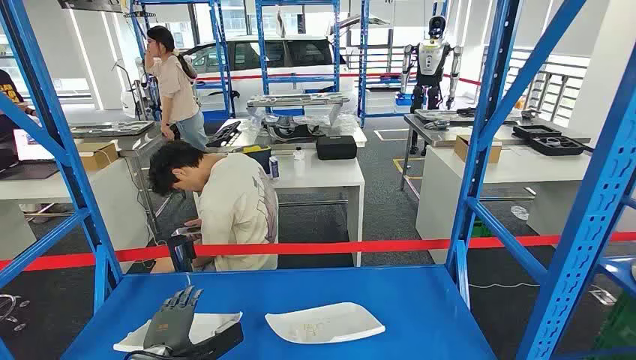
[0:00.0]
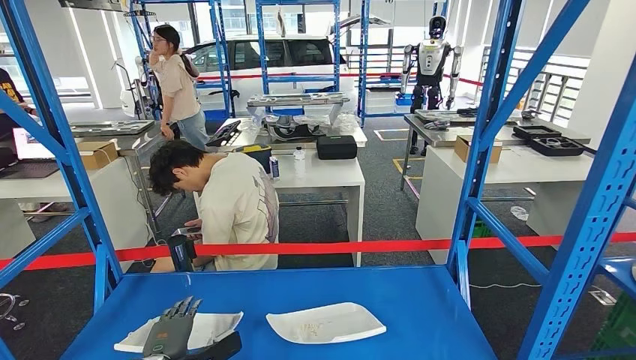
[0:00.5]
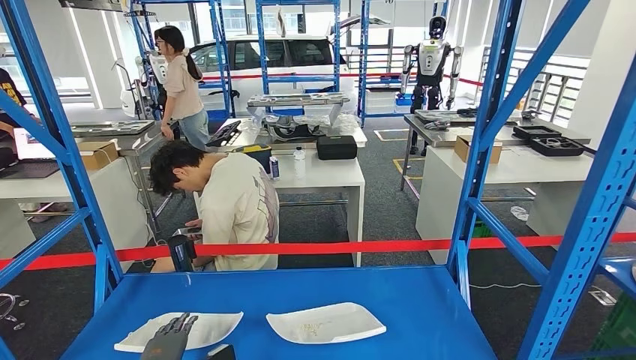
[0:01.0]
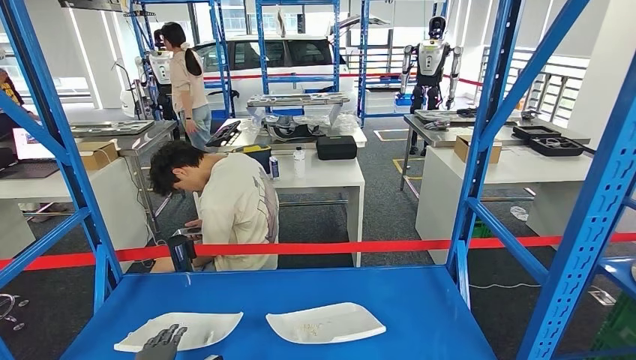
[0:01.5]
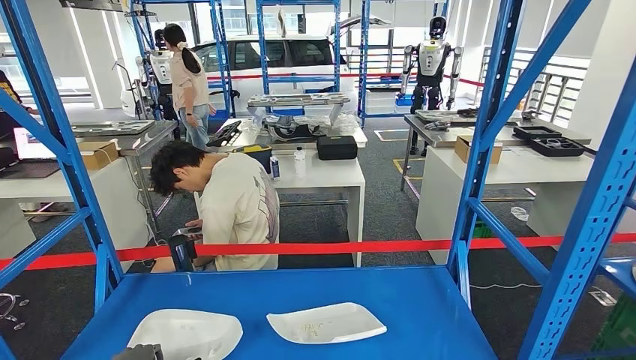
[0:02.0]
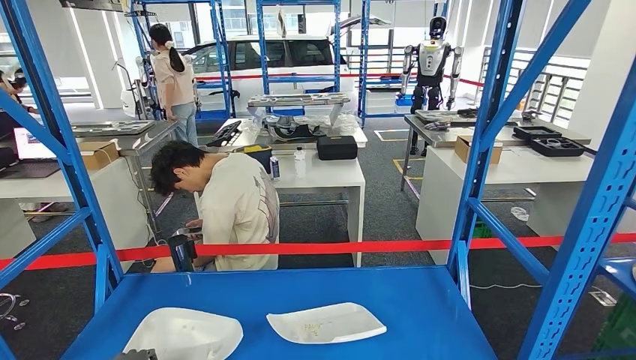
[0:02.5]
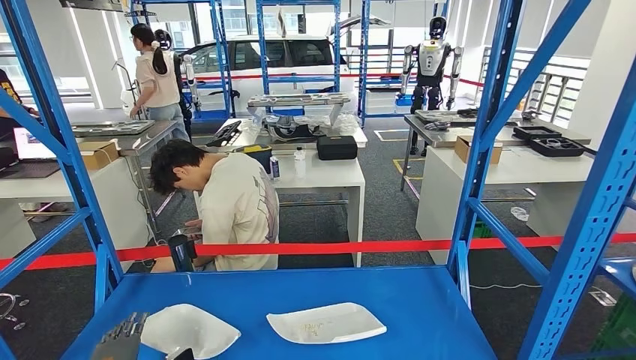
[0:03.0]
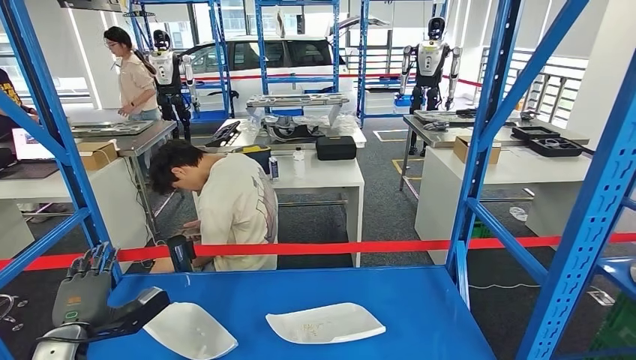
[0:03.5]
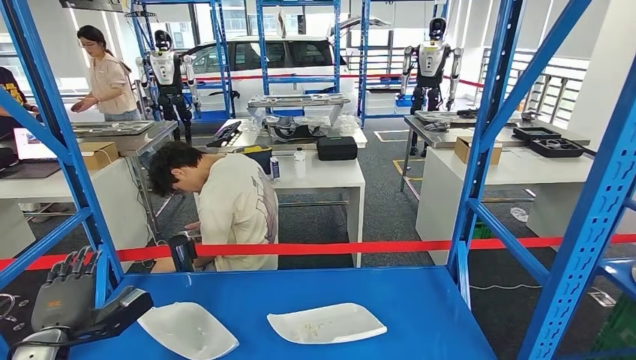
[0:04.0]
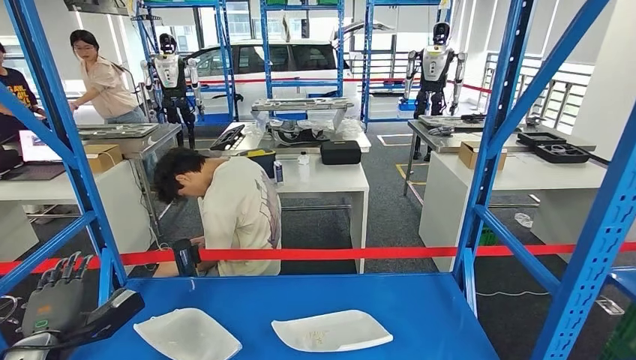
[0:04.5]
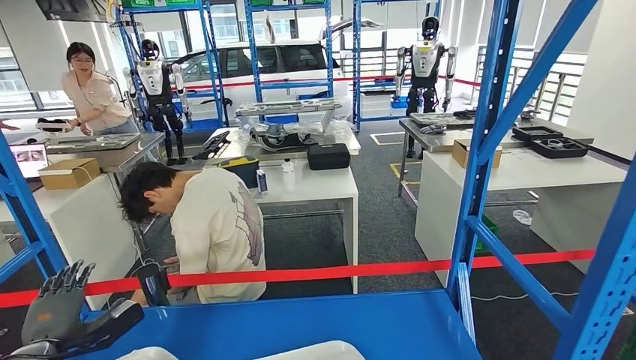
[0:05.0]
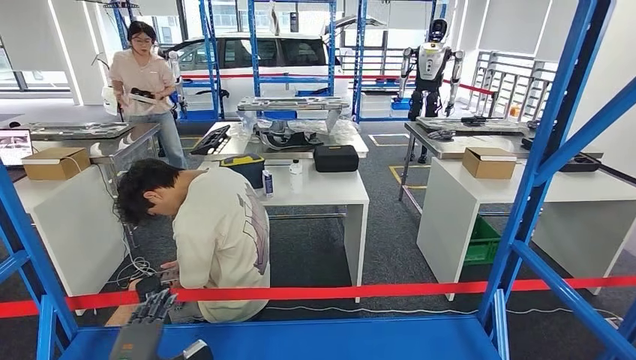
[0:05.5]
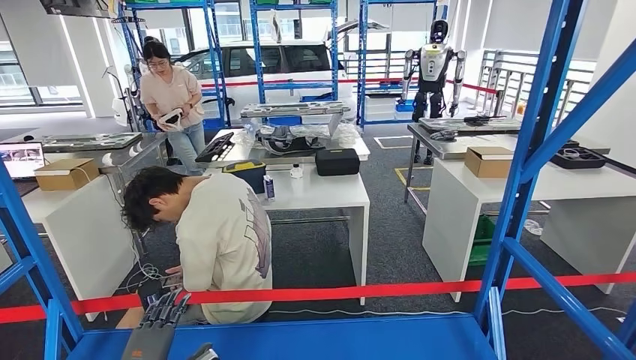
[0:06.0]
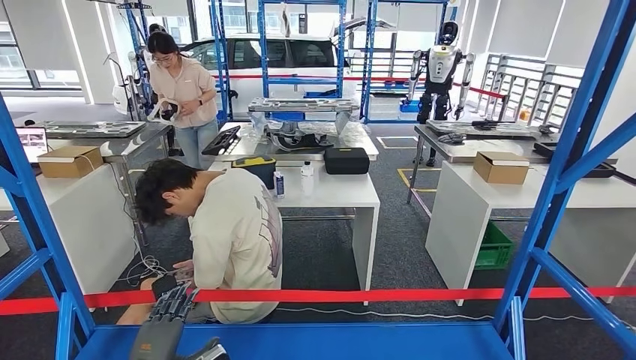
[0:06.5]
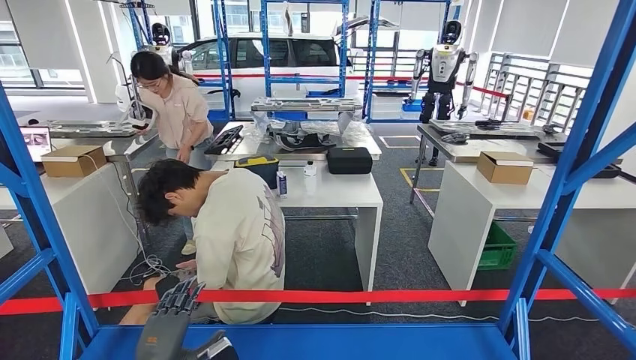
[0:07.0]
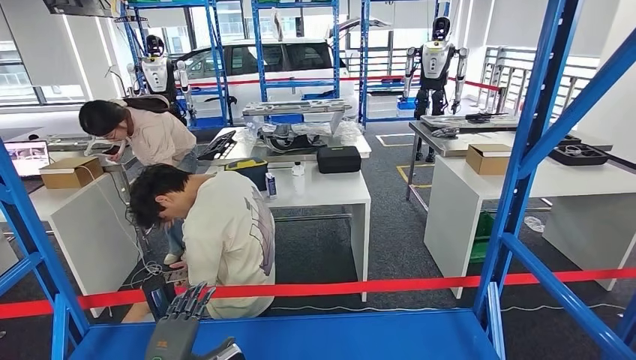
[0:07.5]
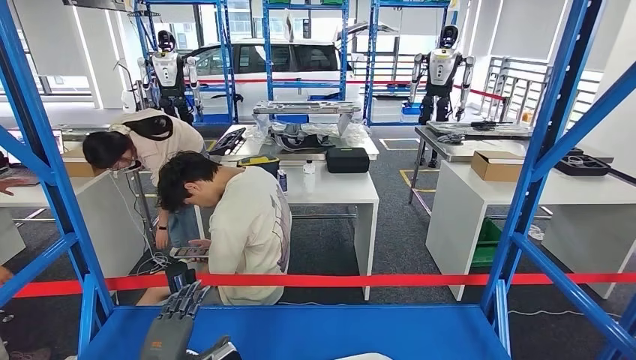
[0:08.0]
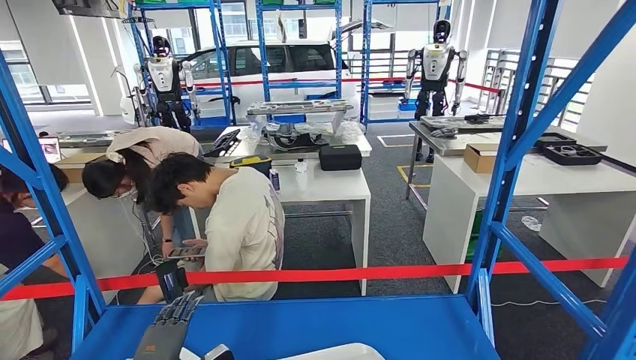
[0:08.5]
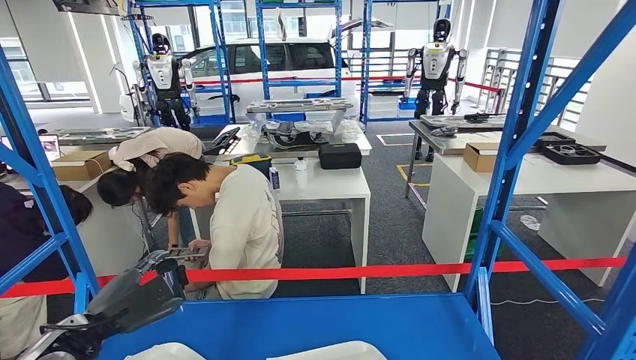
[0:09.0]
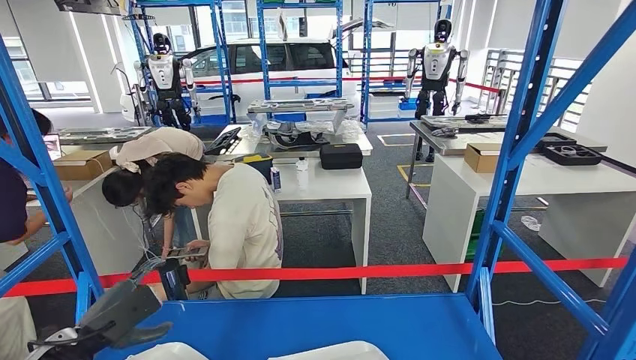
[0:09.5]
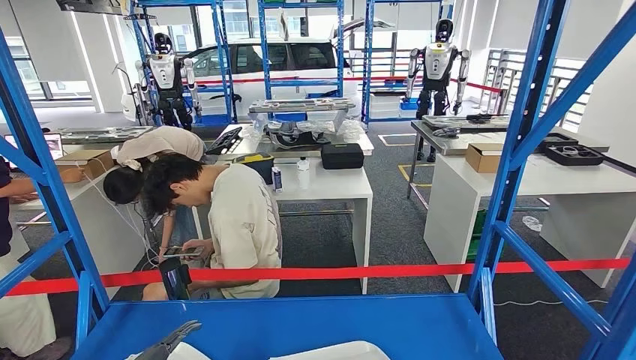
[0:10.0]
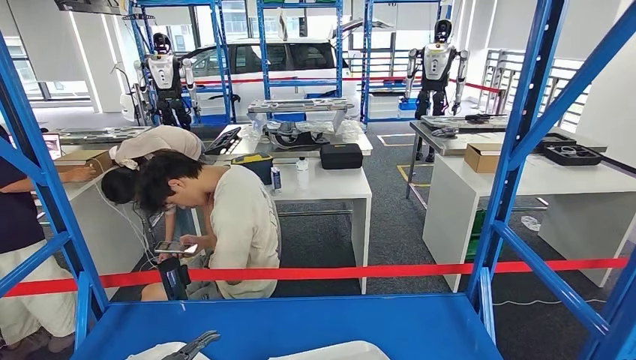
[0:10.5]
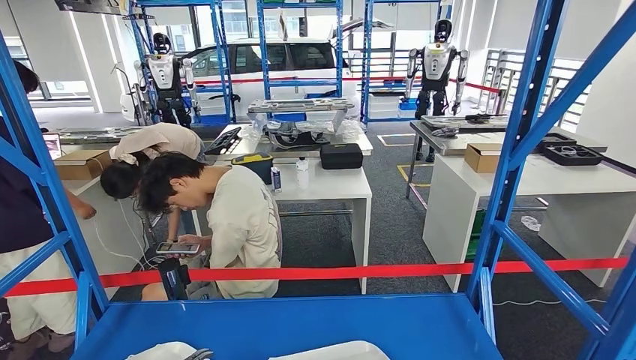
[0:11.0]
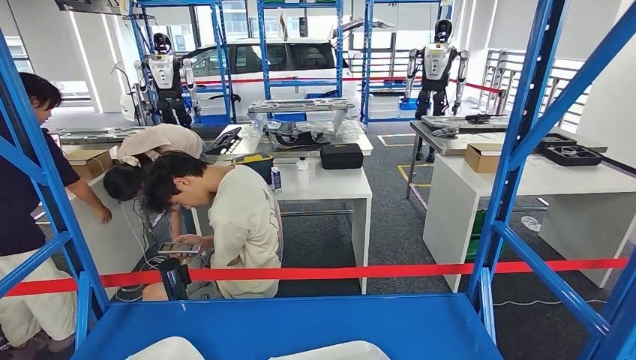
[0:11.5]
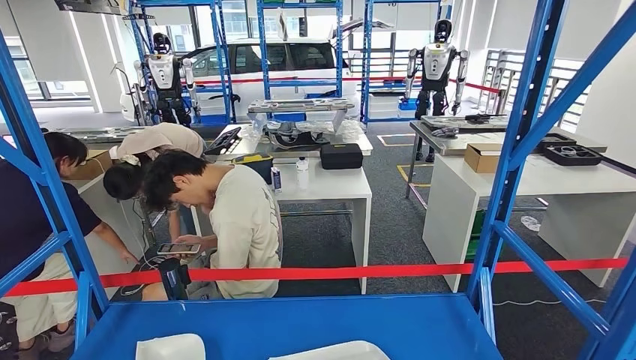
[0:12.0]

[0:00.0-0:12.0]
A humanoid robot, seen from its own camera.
0:02.0 to 0:04.0: The left hand goes about 15 cm upward and to the left.
0:10.0 to 0:12.0: The left hand travels downward by approximately 10 cm.

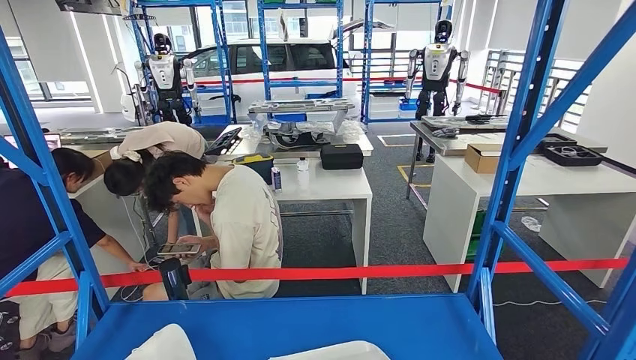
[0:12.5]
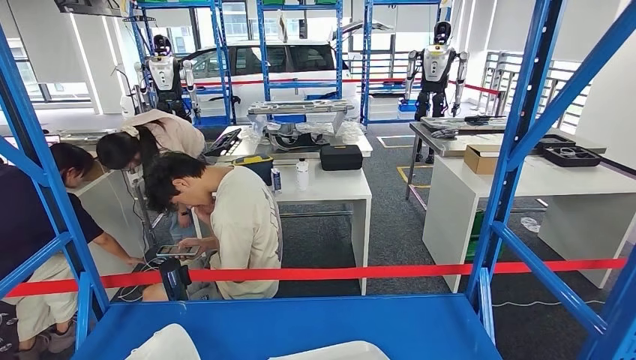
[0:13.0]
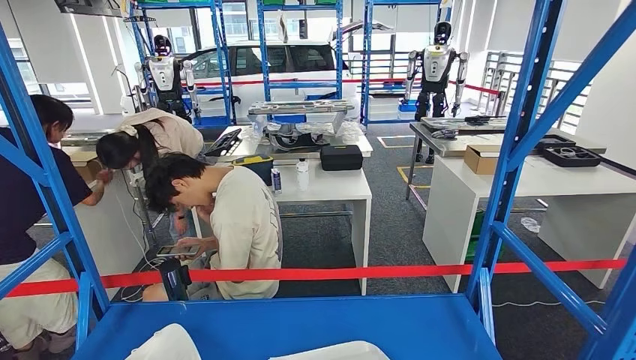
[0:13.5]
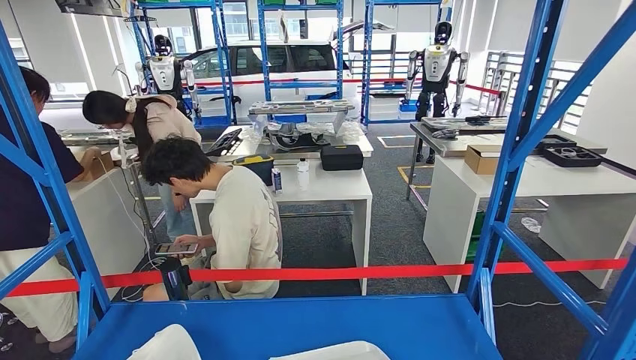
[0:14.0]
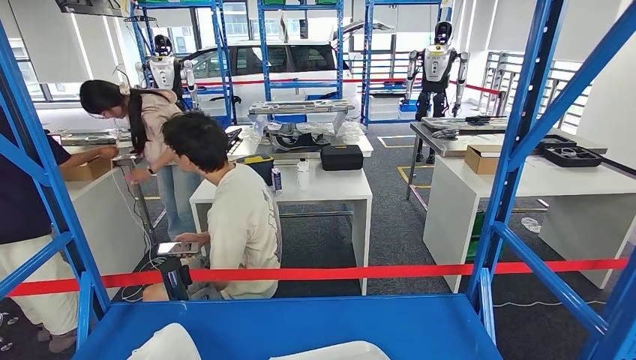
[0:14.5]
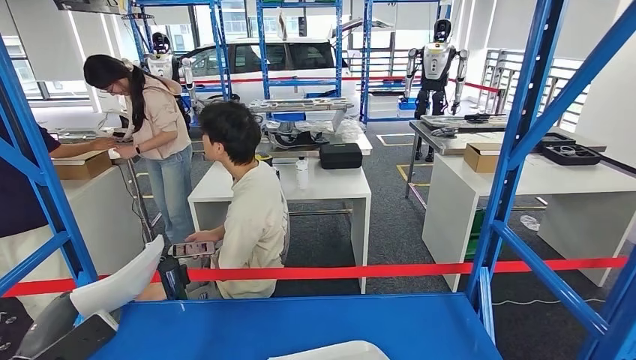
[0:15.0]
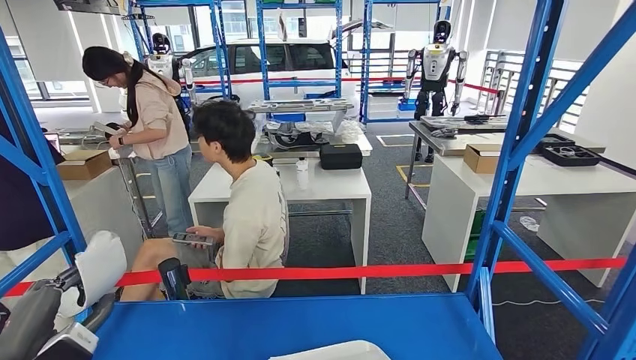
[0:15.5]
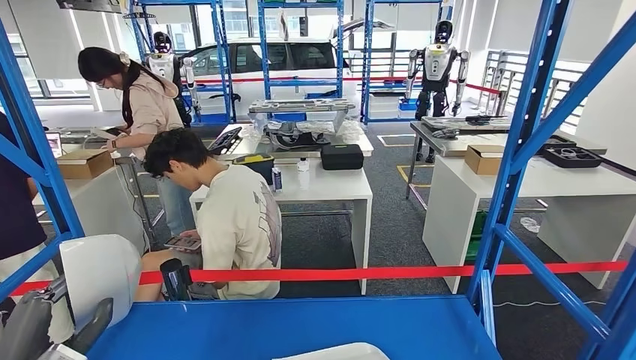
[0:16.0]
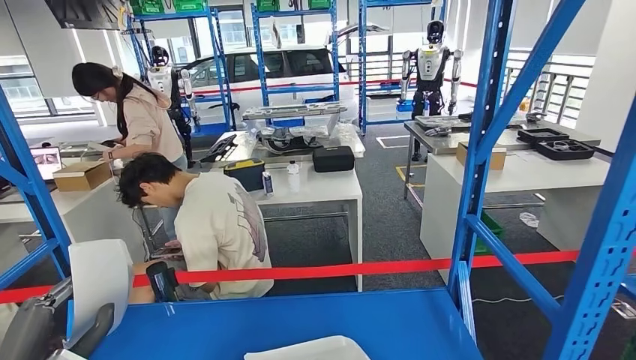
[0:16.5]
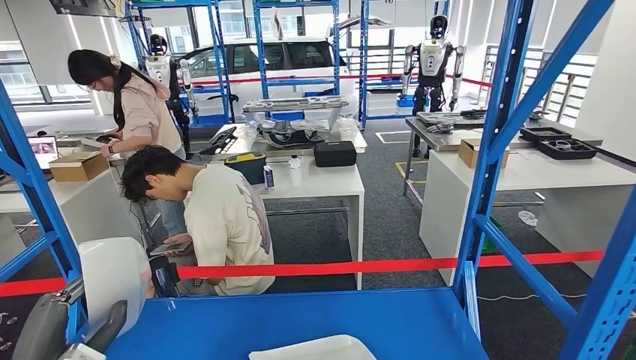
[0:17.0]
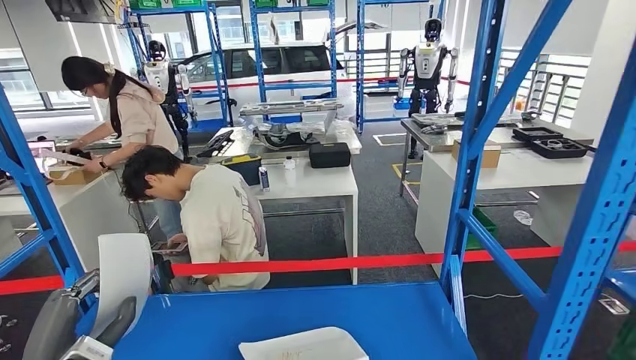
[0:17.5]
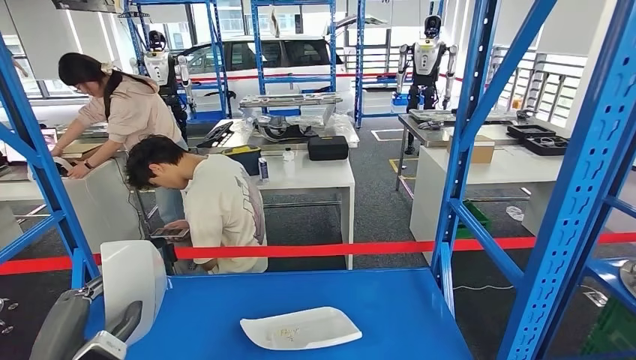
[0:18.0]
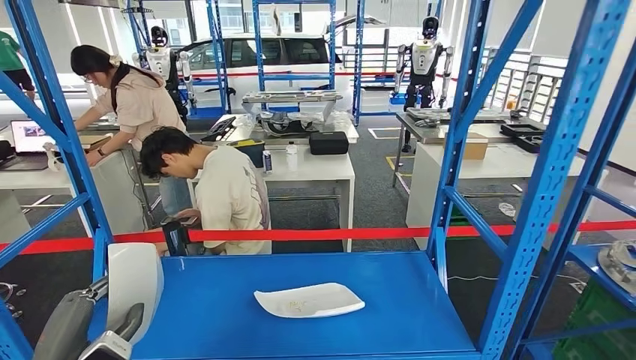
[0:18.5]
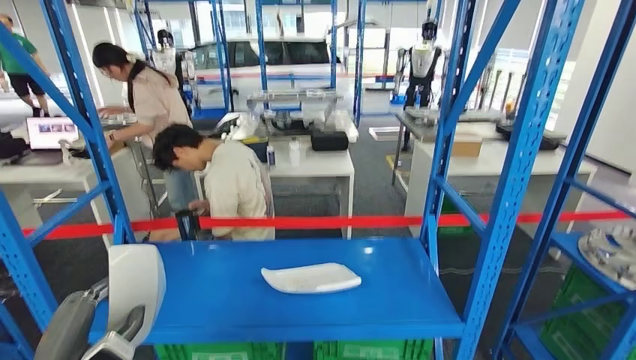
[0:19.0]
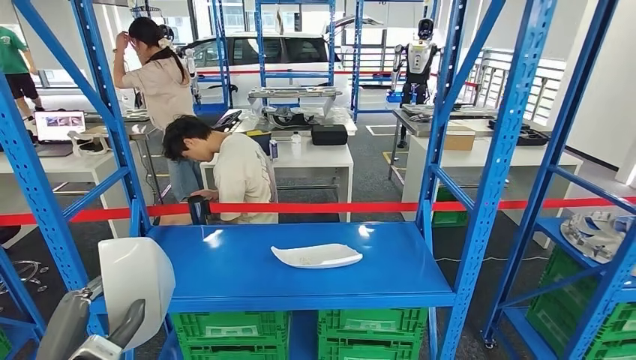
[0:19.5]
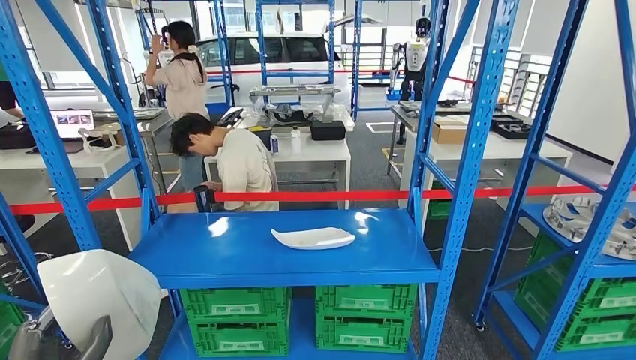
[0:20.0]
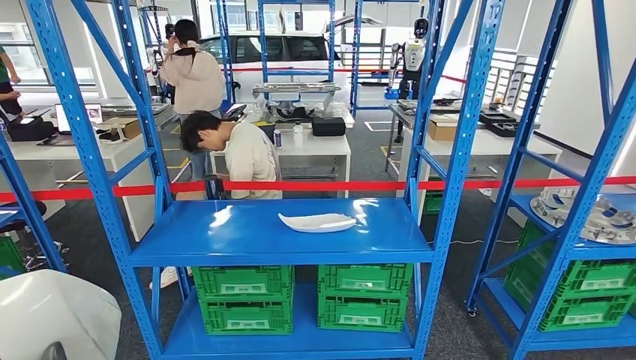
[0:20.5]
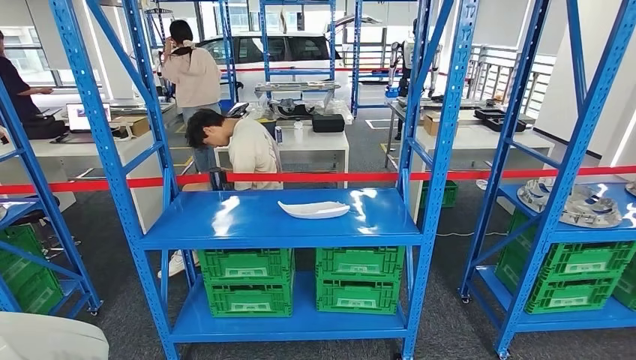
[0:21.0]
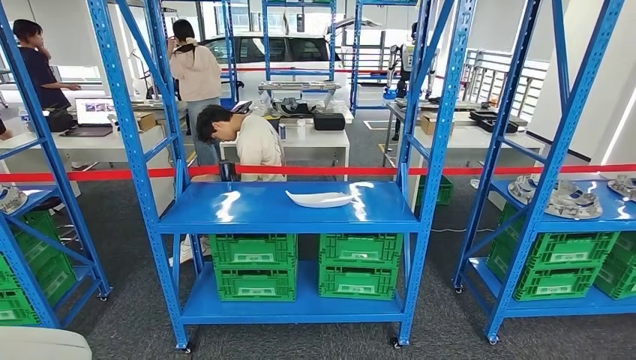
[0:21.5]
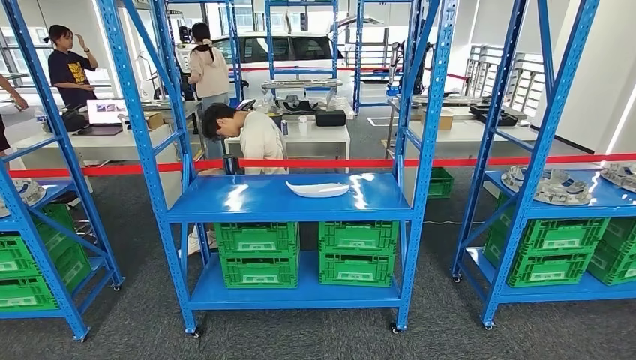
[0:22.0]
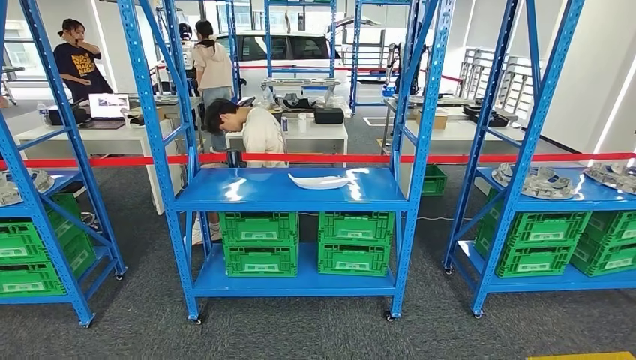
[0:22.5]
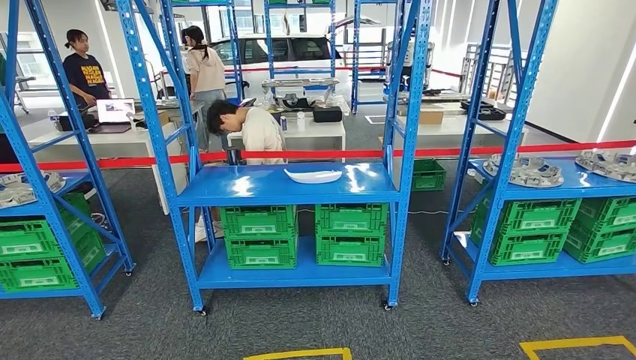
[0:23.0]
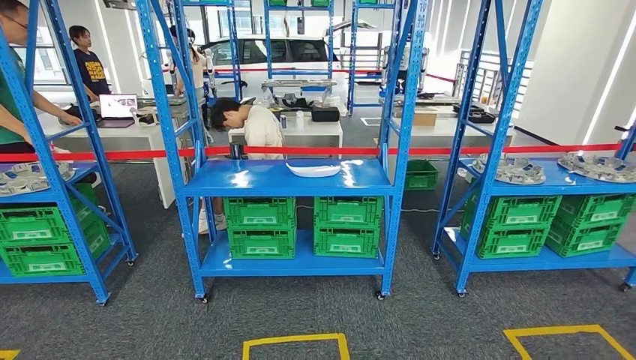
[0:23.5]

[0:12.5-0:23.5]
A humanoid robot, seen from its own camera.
Step, 0:12.5 to 0:16.0: Take small components from the rack.
0:12.5 to 0:14.5: The hands make only small movements.
